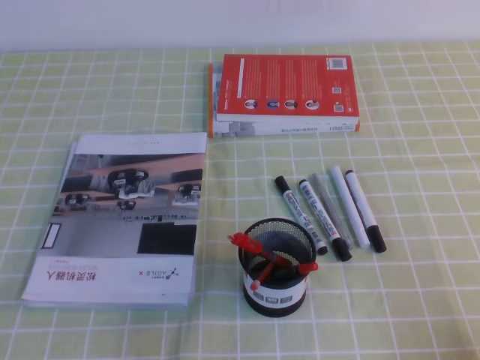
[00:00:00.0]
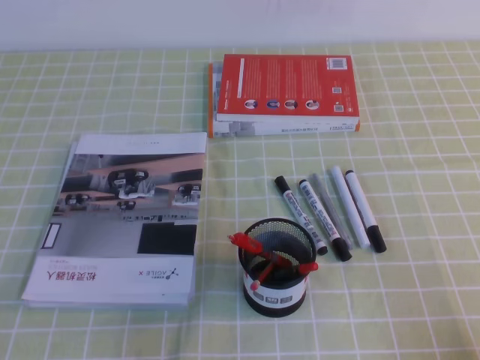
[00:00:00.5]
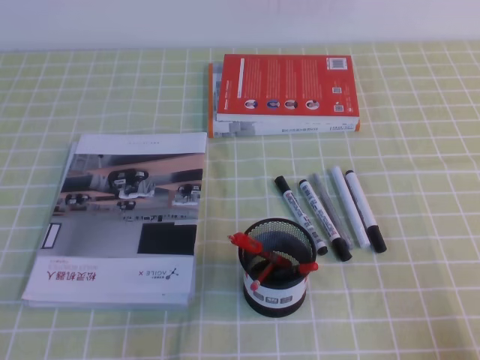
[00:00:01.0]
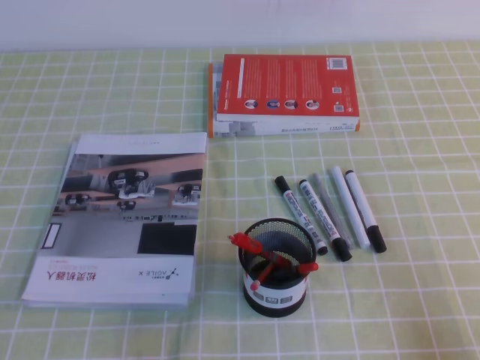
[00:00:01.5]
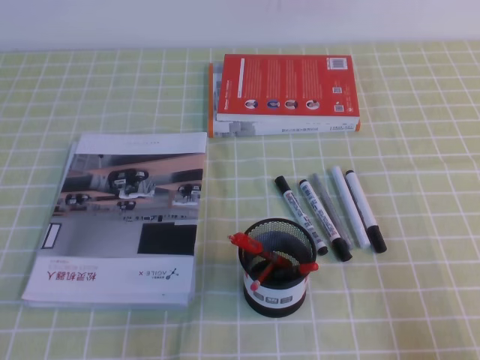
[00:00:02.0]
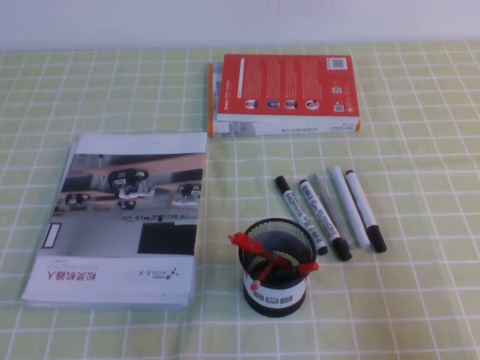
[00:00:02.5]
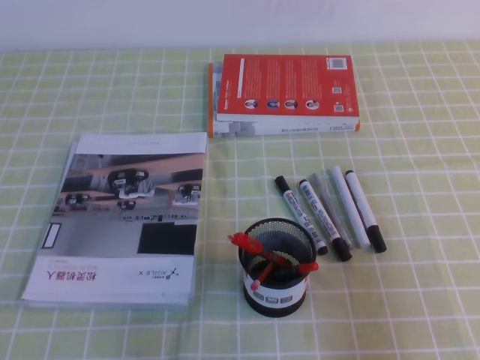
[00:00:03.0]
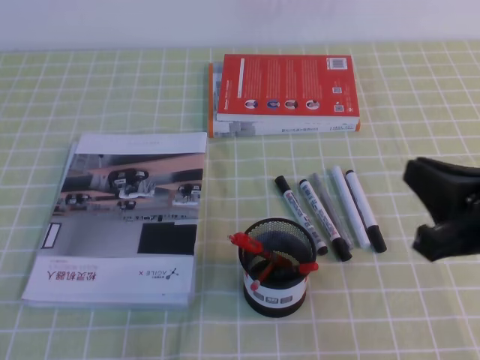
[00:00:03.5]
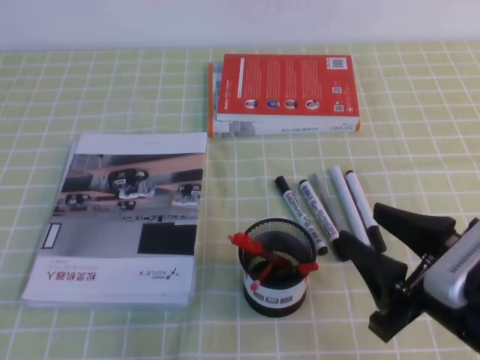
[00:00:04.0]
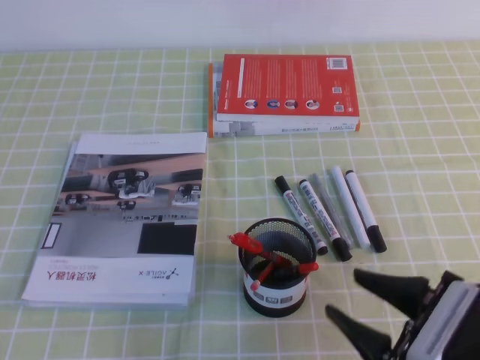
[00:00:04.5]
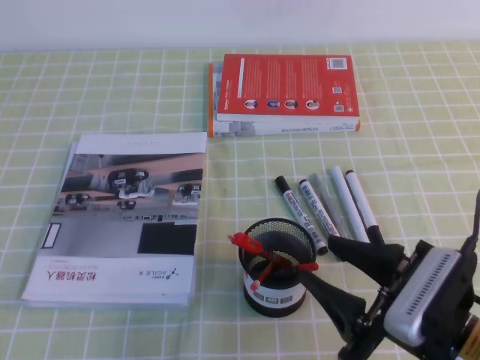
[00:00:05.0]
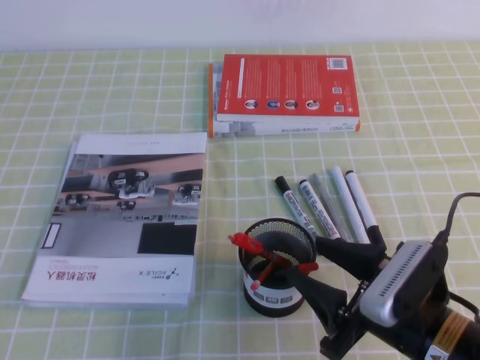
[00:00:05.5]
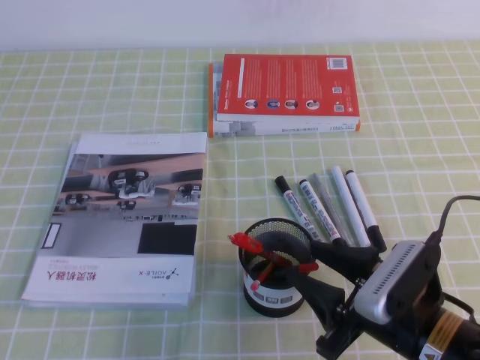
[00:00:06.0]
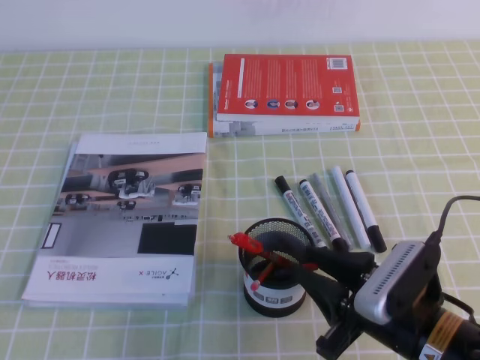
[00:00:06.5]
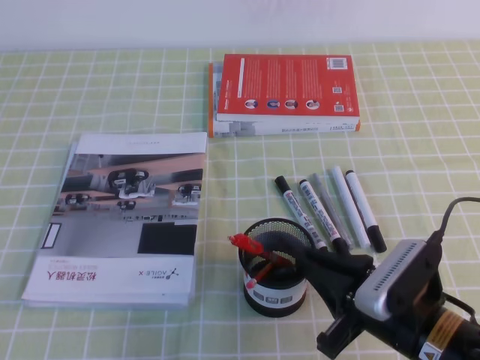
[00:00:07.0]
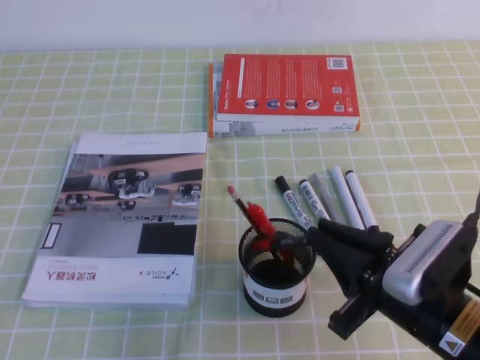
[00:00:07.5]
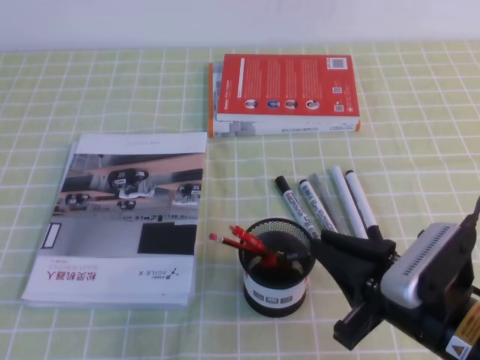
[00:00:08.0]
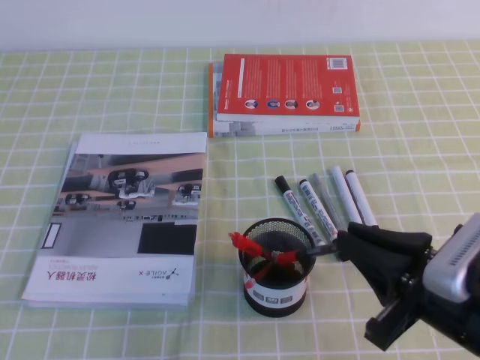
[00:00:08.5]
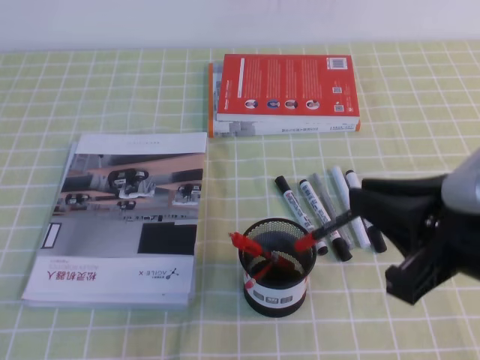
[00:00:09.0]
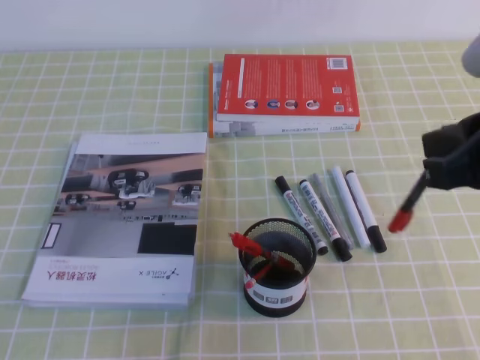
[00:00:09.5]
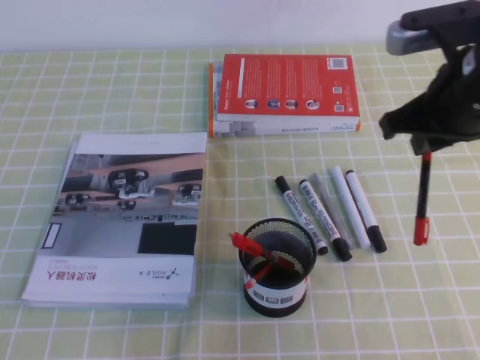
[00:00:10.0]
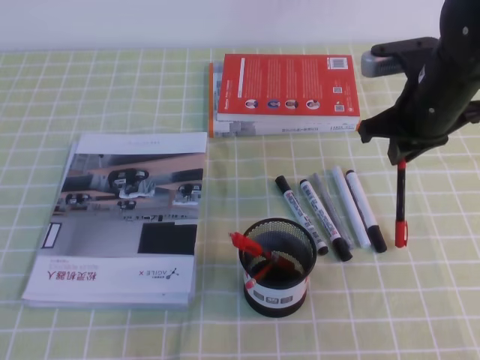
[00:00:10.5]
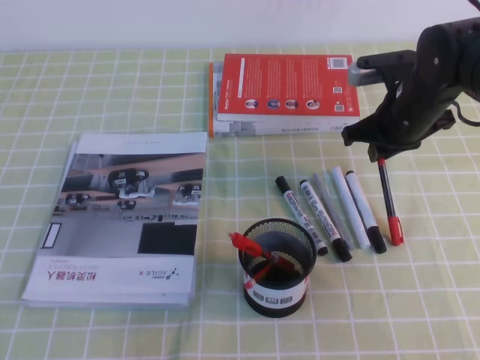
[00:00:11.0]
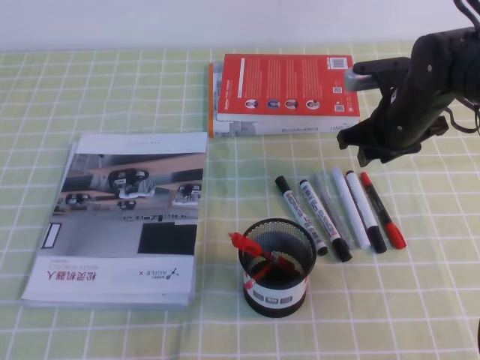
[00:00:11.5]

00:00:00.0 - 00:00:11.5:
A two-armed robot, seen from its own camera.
00:00:02.0 - 00:00:04.0: The right gripper moves to the left and forward, roughly 15 cm, and opens up.
00:00:04.0 - 00:00:06.0: The right gripper shifts approximately 5 cm downward.
00:00:06.0 - 00:00:07.5: The right gripper closes its fingers.
00:00:07.5 - 00:00:09.5: The right gripper travels upward by roughly 20 cm.
00:00:09.5 - 00:00:11.5: The right gripper travels forward and downward by approximately 30 cm, and opens its fingers.

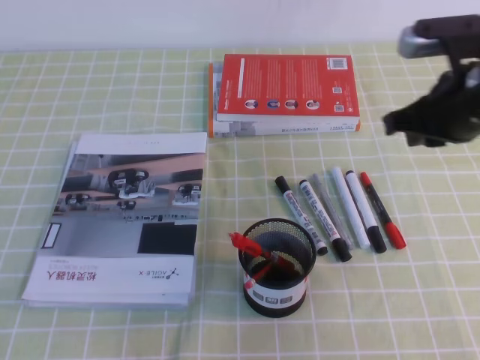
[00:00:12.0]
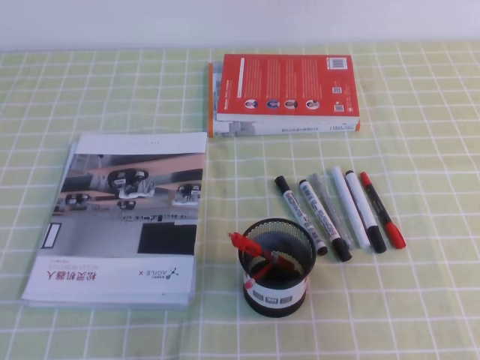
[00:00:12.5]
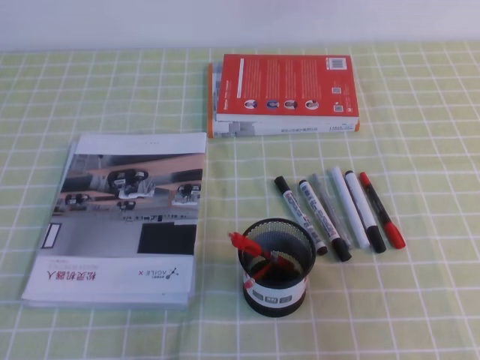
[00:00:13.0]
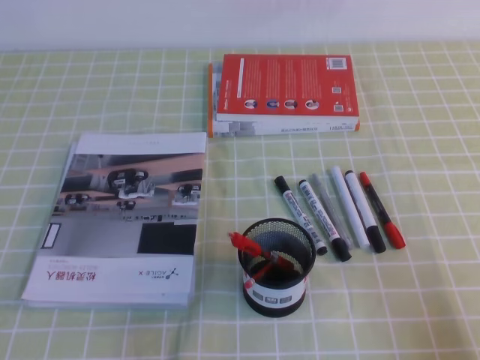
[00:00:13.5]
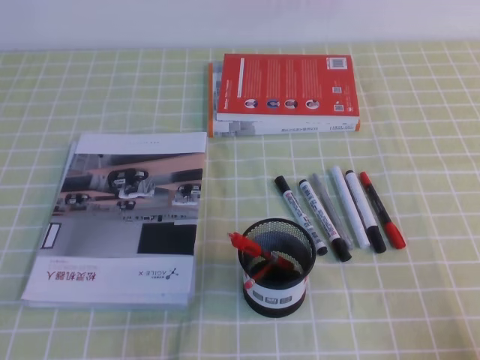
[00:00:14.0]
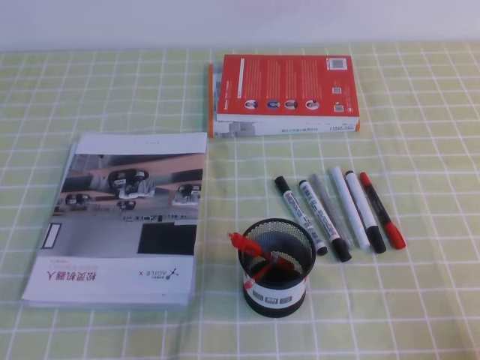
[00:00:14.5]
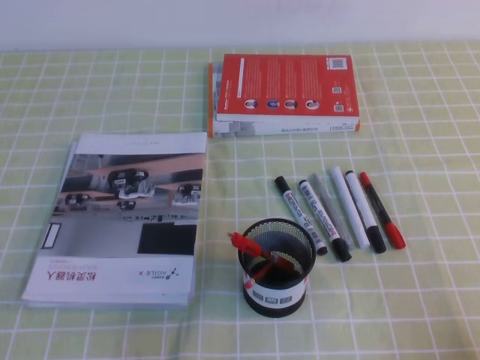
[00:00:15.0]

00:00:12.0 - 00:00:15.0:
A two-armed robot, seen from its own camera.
Step, 00:00:12.0 - 00:00:15.0: Pick up the pen from the pen holder.
00:00:12.0 - 00:00:13.5: The right gripper shifts approximately 25 cm backward and to the right.
